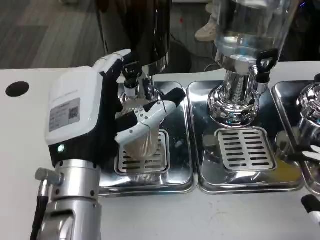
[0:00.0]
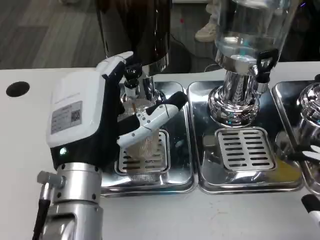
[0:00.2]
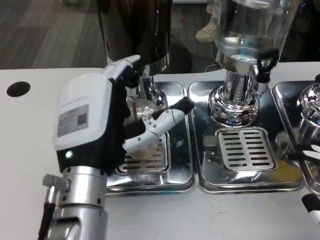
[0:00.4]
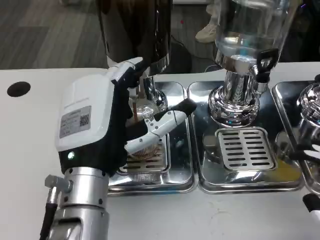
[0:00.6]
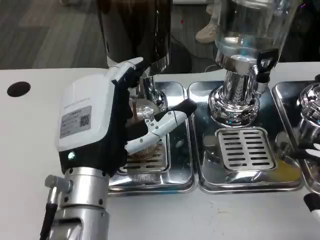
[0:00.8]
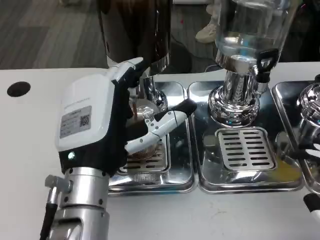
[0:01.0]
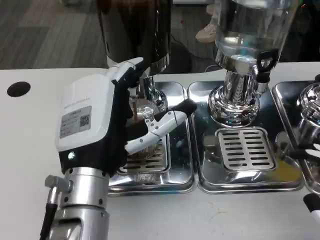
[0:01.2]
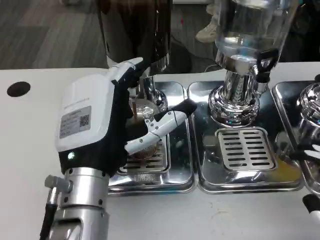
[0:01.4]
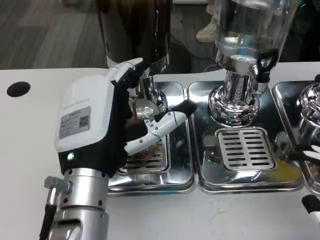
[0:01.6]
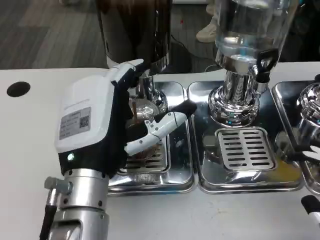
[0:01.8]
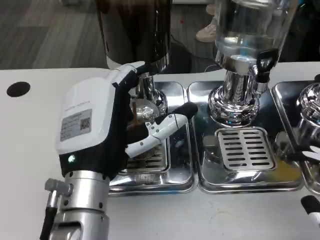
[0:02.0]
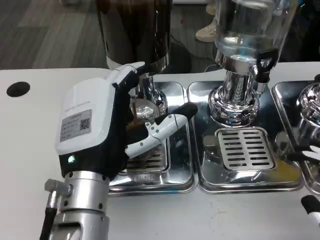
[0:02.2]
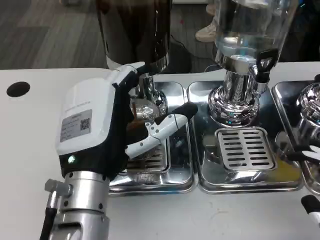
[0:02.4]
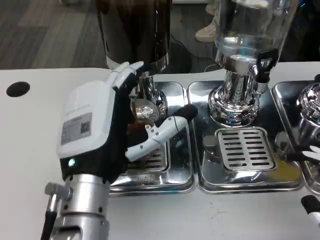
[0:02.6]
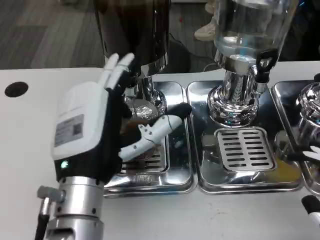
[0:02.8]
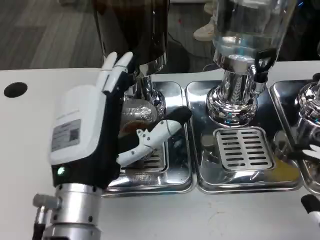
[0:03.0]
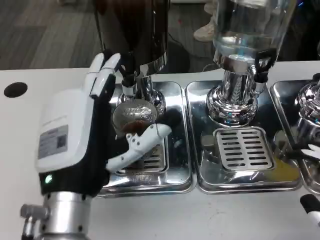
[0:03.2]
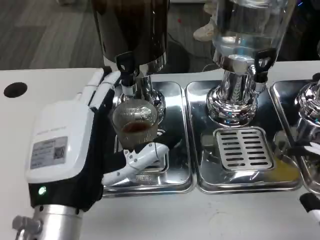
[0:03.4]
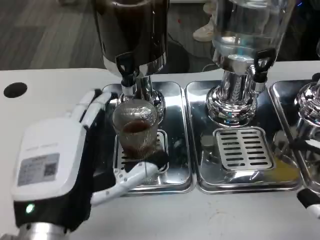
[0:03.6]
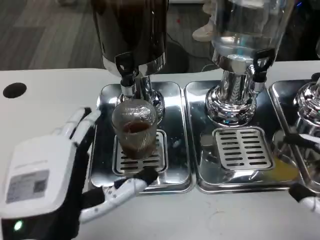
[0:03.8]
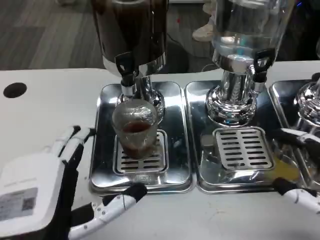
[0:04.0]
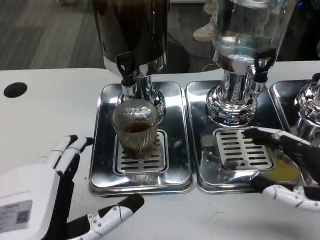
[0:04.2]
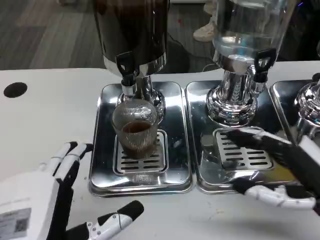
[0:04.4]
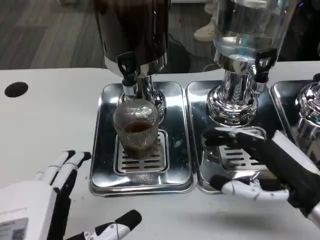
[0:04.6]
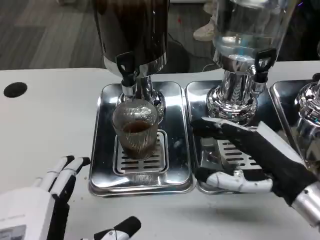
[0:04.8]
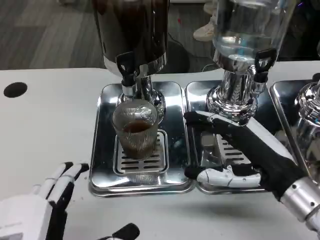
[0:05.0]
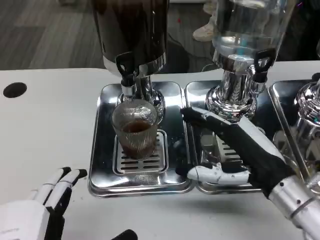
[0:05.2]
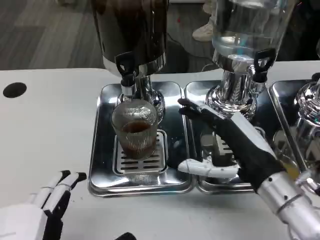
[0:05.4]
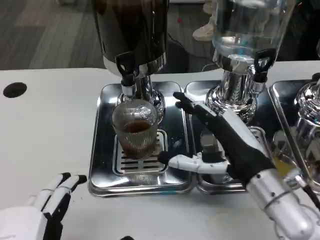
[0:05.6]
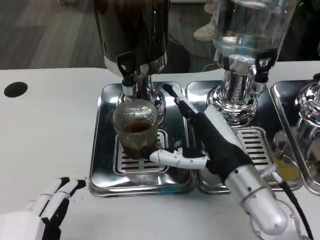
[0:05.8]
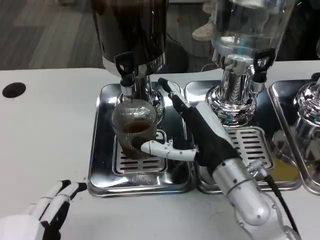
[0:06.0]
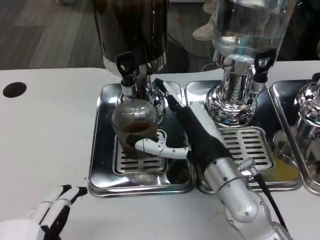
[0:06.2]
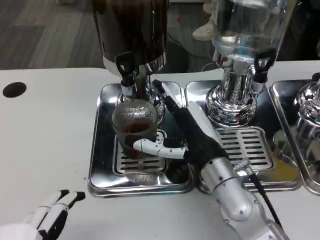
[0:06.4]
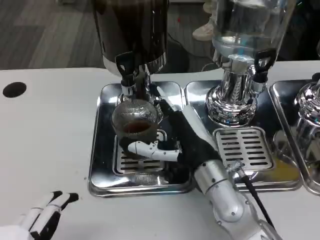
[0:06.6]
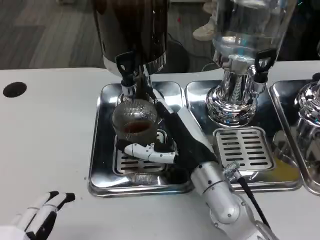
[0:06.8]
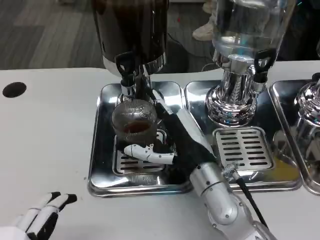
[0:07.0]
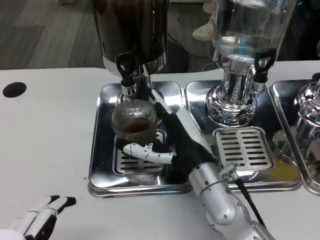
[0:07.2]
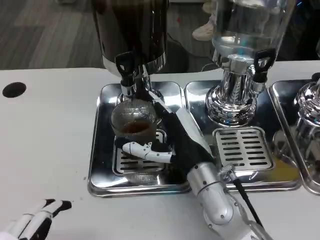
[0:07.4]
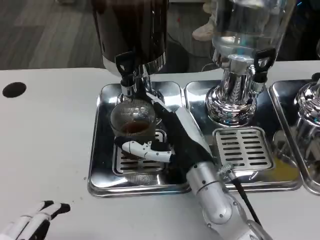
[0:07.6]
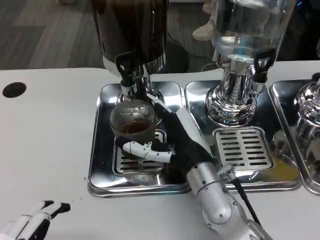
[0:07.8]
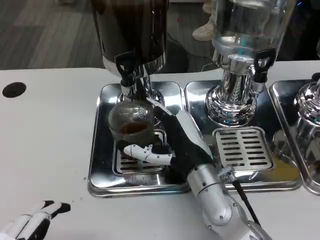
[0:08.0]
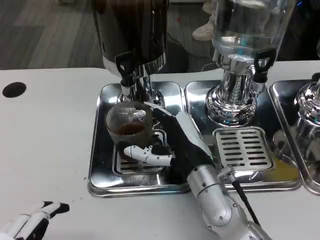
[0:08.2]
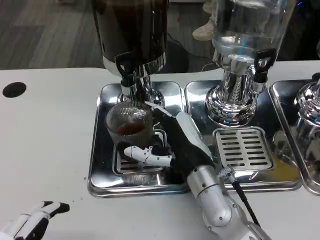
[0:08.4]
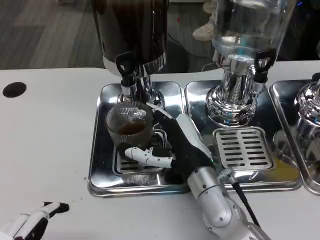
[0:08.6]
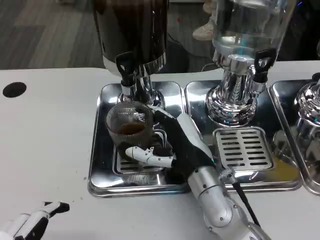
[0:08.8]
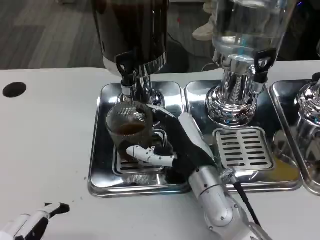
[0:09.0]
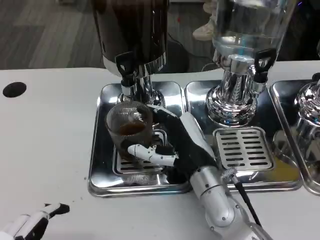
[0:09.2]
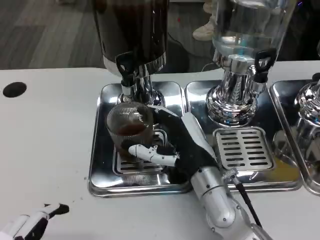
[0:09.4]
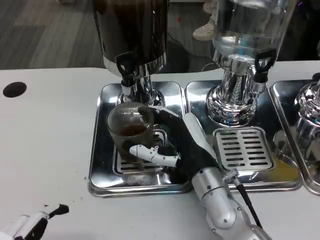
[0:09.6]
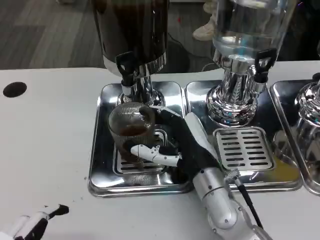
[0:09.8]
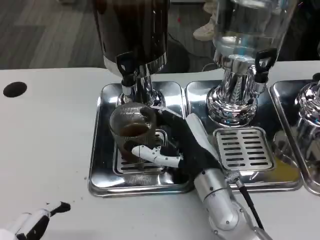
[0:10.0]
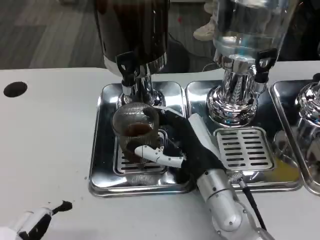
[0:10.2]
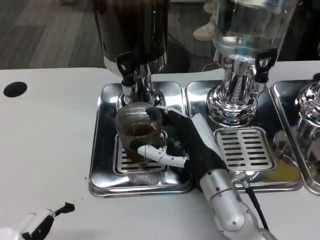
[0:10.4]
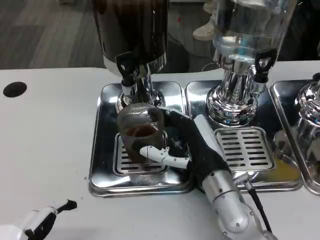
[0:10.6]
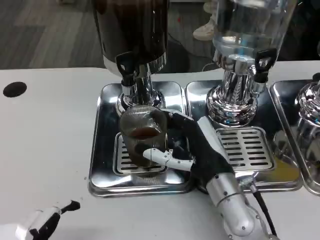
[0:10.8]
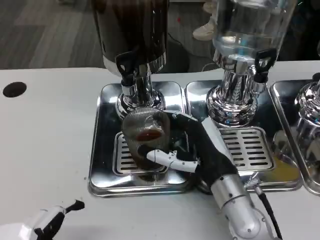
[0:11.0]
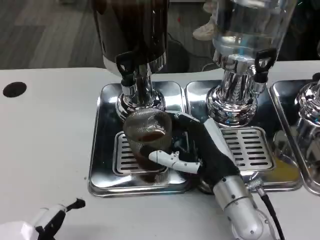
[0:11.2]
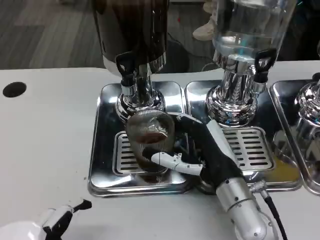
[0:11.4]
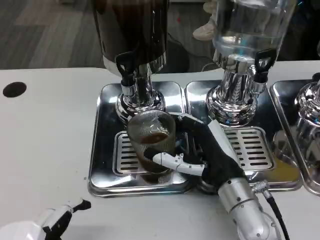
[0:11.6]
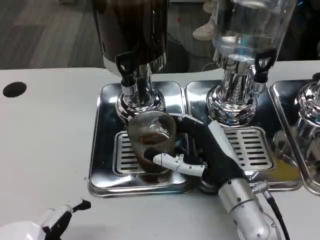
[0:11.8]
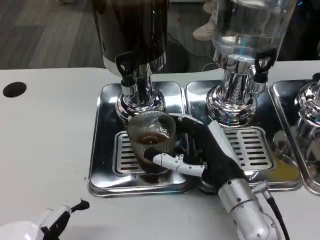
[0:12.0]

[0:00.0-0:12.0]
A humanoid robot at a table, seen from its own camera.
Task of the whole recording: Grasp the cup under the faucet to collect the drink, then remove the cup.
0:00.0 to 0:01.6: Both hands stay put.
0:03.0 to 0:04.4: The left hand moves backward, about 10 cm. The right hand moves forward, some 10 cm.
0:04.4 to 0:06.0: The right hand goes some 15 cm to the left and forward.
0:06.0 to 0:07.6: The hands make only small movements.
0:07.6 to 0:09.0: Neither hand changes place.
0:09.0 to 0:12.0: There are only small adjustments of the hands.

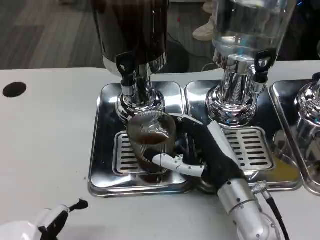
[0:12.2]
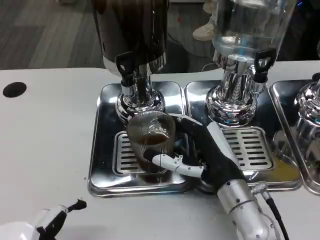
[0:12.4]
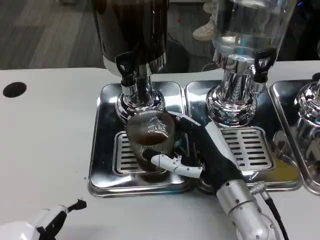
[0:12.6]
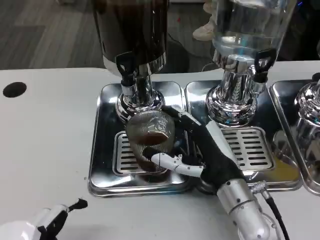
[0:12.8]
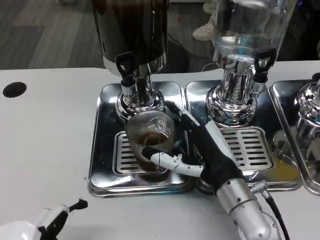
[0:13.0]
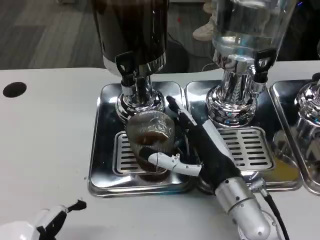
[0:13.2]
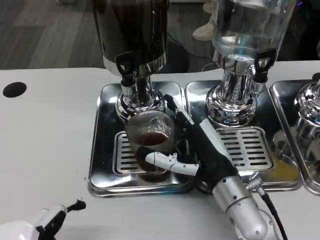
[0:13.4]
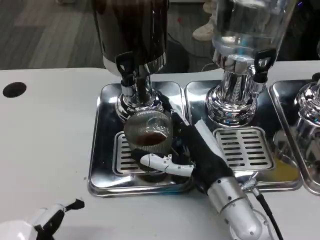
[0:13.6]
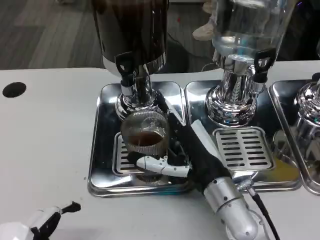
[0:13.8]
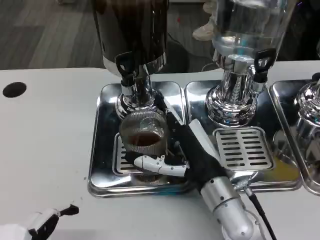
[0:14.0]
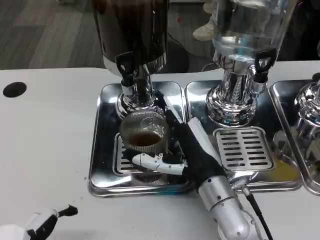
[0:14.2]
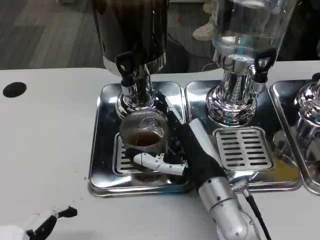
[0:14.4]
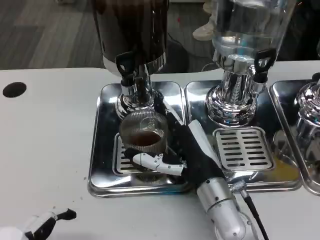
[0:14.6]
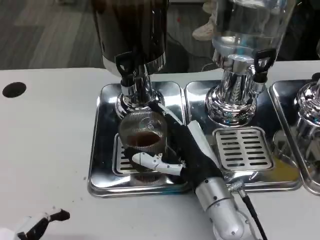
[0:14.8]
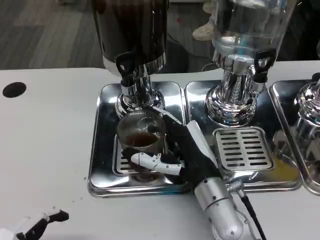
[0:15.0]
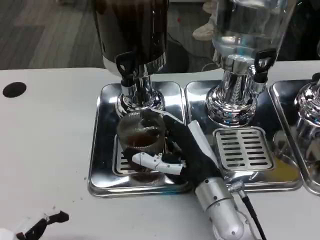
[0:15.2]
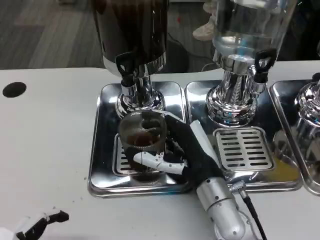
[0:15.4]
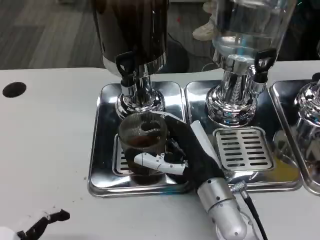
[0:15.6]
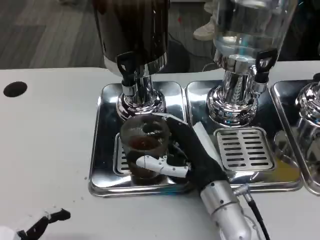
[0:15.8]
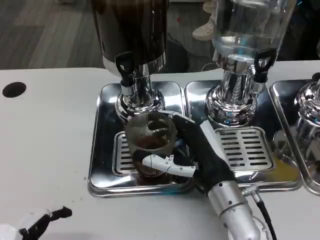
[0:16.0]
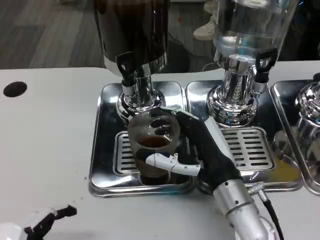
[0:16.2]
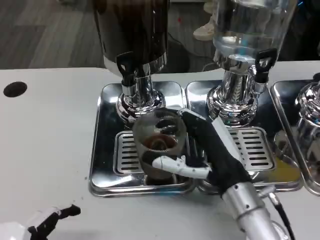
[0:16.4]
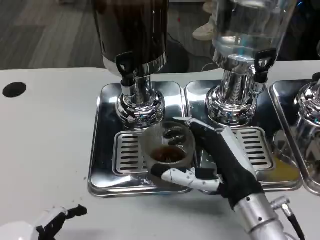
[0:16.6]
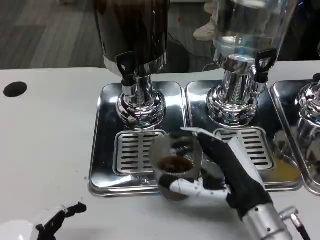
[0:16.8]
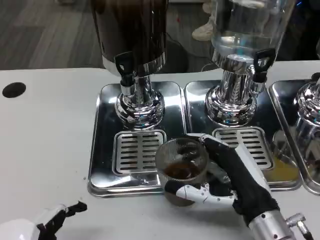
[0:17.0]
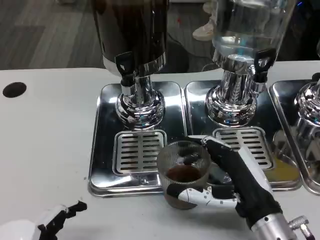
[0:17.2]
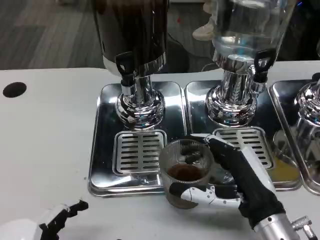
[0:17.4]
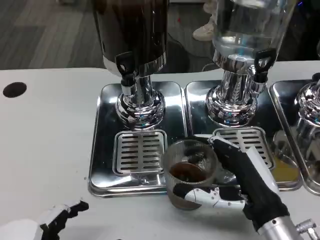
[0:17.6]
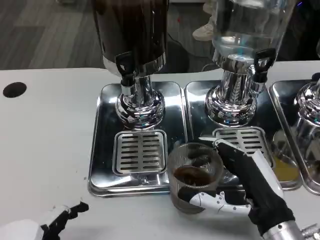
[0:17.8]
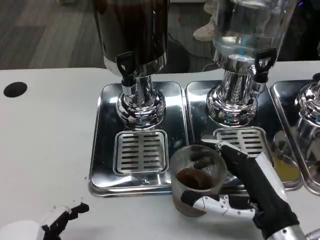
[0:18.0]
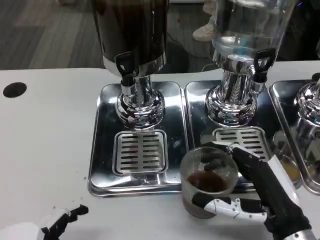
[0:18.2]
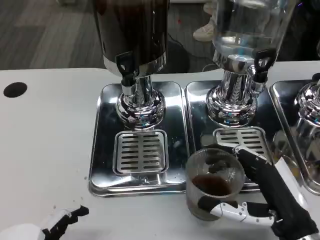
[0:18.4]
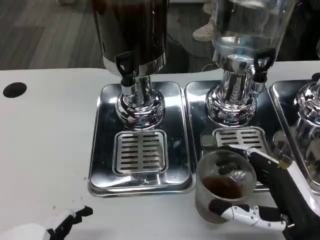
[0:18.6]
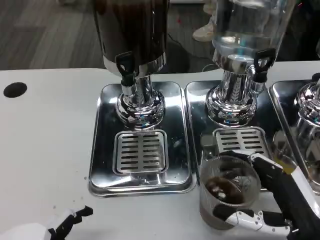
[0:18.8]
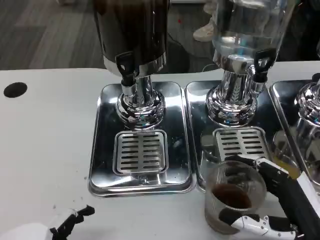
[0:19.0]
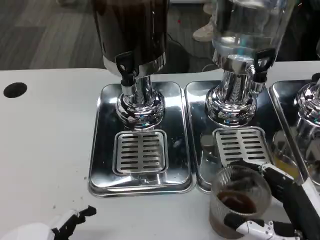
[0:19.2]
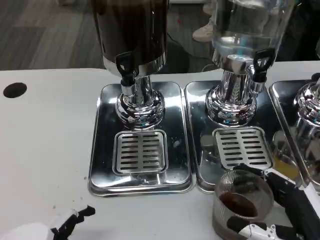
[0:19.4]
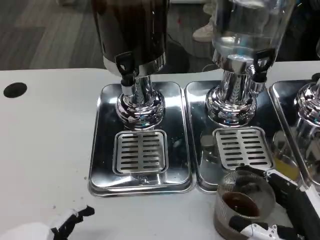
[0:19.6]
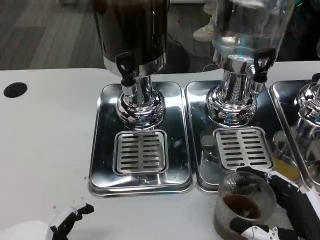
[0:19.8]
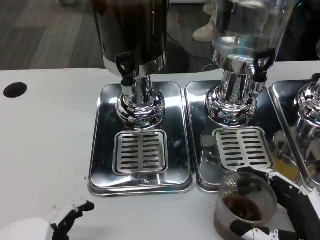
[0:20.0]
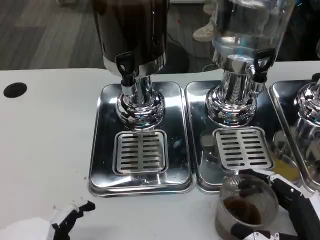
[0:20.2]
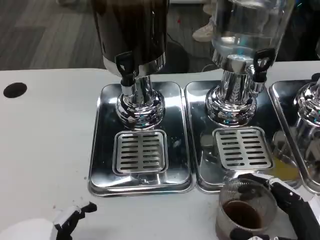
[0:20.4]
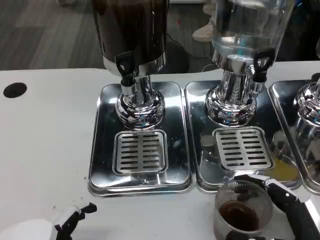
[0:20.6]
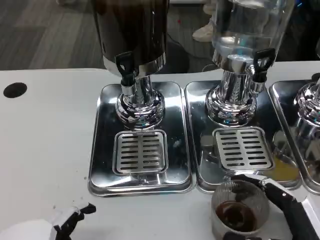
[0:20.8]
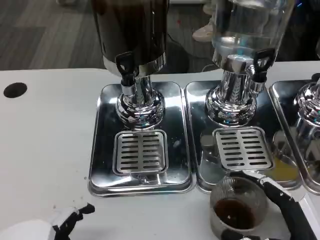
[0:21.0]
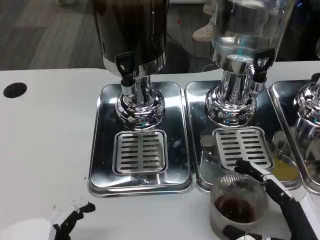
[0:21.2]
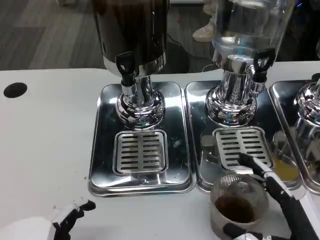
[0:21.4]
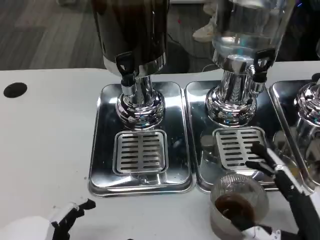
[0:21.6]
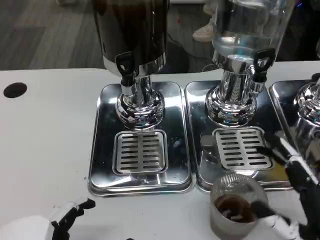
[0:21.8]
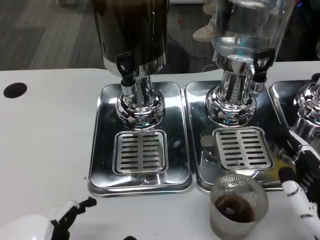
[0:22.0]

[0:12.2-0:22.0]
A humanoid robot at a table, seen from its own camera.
Task of the whole recording: Grasp the cup under the faucet to collect the drink, then remove the cup.
0:12.2 to 0:15.0: The hands stay close to where they were, moving slightly.
0:15.0 to 0:16.4: The right hand ends up some 5 cm from where it was.
0:16.4 to 0:17.8: The right hand shifts by about 5 cm.
0:17.8 to 0:19.2: The right hand heads to the right, covering some 5 cm.
0:19.2 to 0:22.0: There are only small adjustments of the hands.

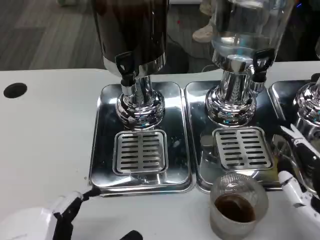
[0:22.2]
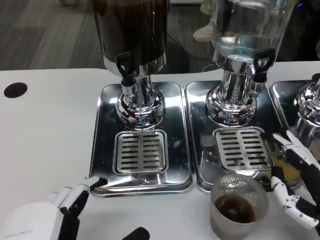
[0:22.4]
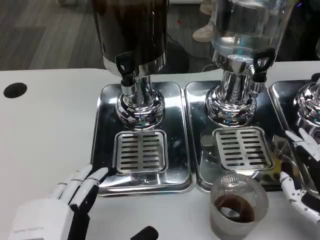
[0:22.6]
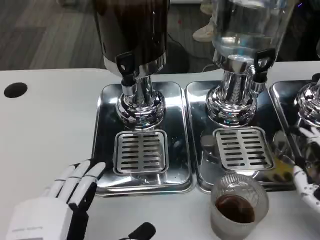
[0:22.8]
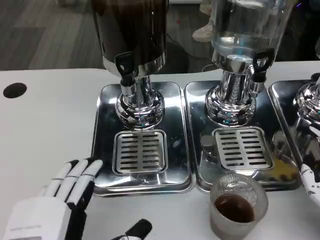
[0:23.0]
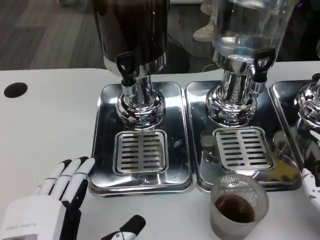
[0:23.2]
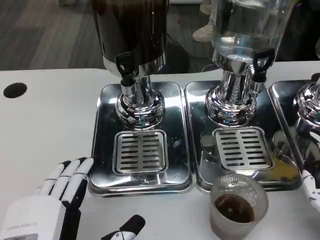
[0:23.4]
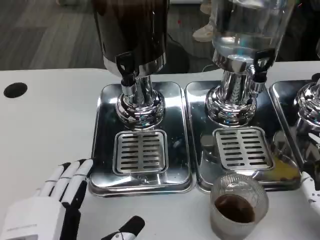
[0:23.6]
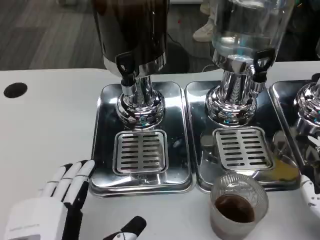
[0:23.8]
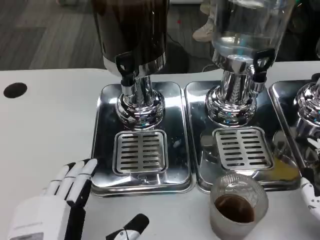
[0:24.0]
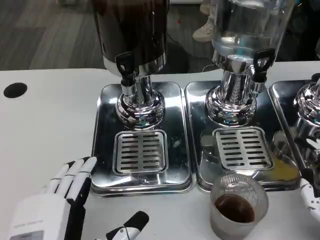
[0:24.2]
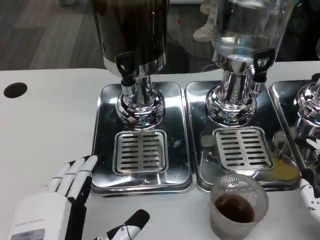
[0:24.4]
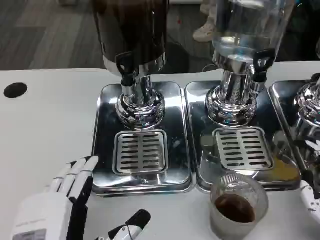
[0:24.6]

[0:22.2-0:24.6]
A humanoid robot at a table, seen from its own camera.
Task of the whole recording: Grasp the cup under the faucet to collect the drink, then remove the cup.
0:23.4 to 0:24.6: Both hands stay about where they are.
